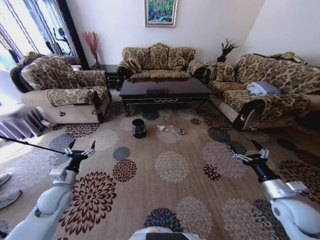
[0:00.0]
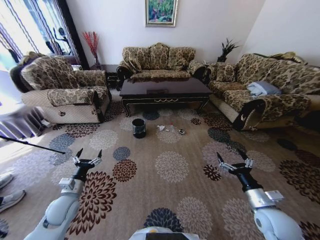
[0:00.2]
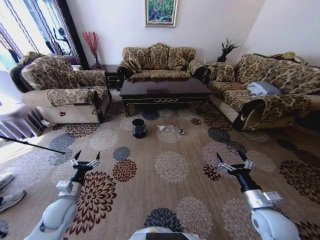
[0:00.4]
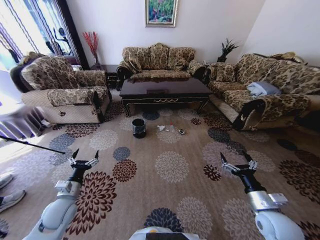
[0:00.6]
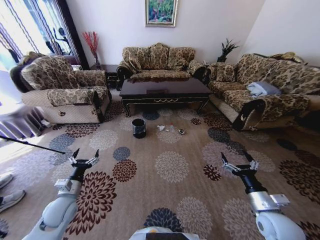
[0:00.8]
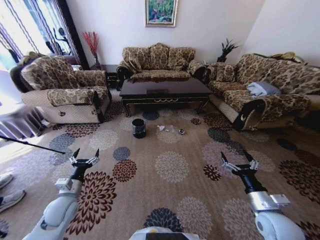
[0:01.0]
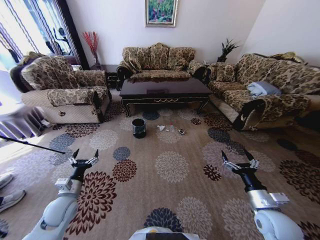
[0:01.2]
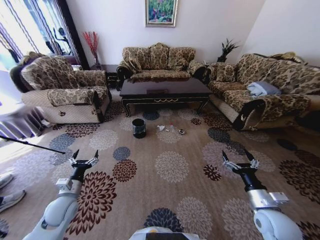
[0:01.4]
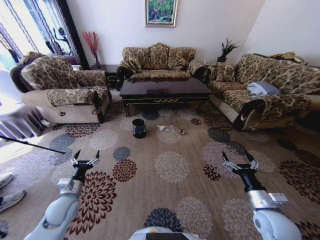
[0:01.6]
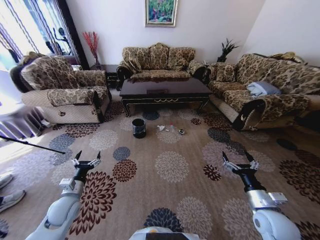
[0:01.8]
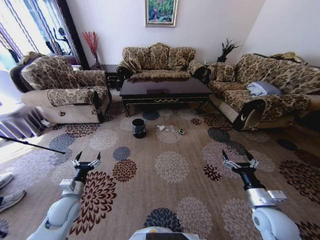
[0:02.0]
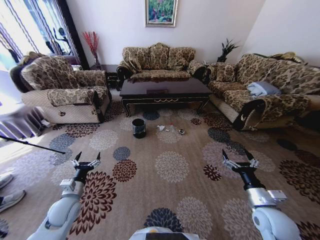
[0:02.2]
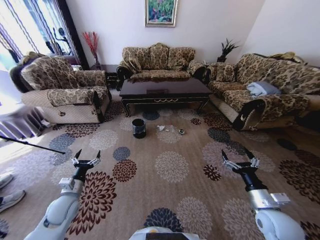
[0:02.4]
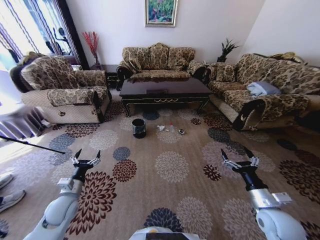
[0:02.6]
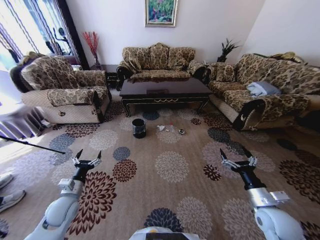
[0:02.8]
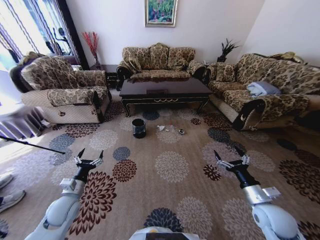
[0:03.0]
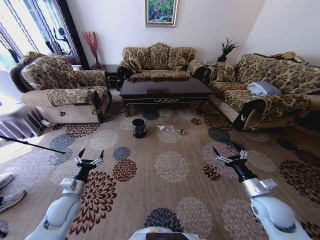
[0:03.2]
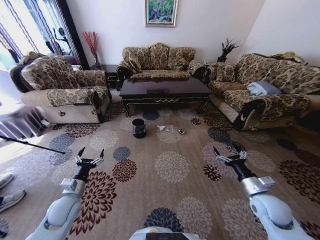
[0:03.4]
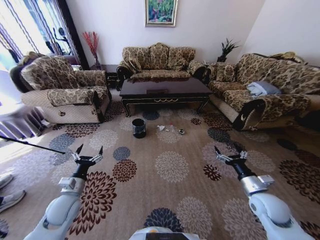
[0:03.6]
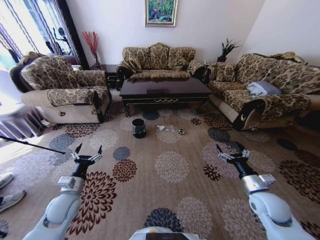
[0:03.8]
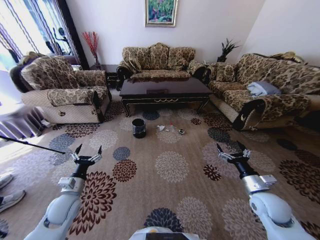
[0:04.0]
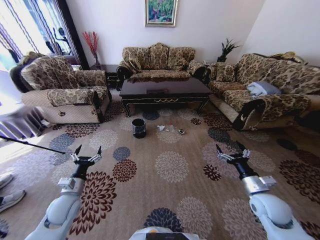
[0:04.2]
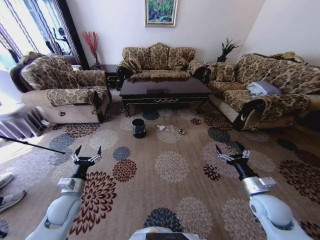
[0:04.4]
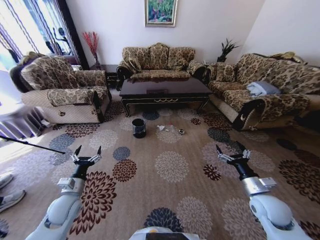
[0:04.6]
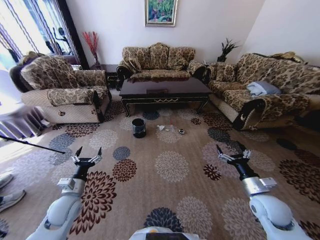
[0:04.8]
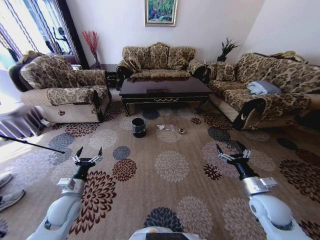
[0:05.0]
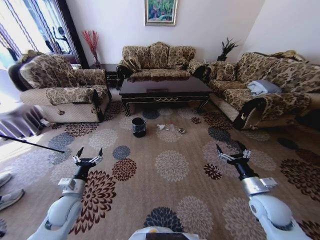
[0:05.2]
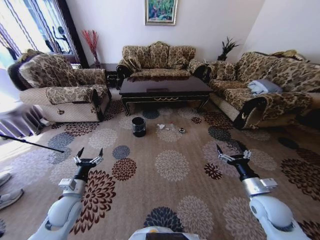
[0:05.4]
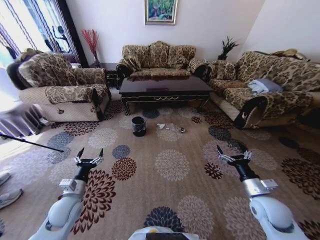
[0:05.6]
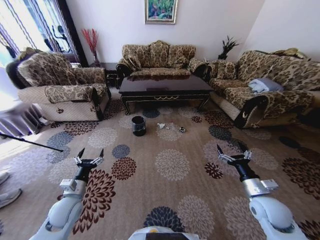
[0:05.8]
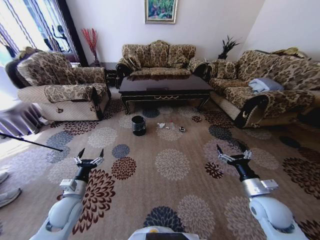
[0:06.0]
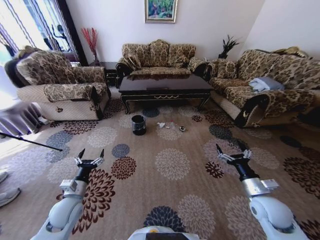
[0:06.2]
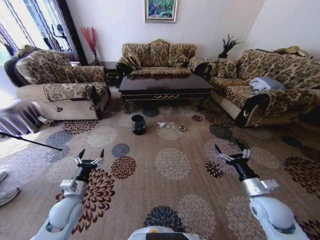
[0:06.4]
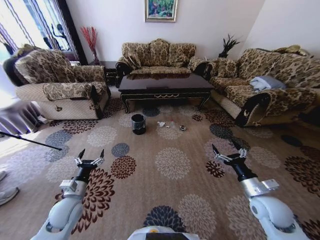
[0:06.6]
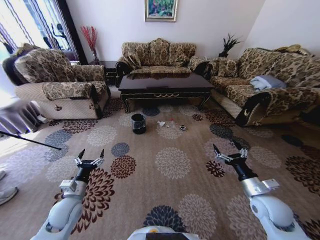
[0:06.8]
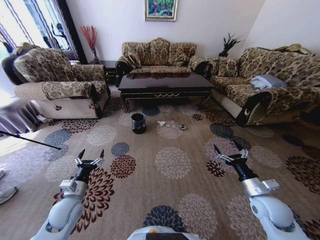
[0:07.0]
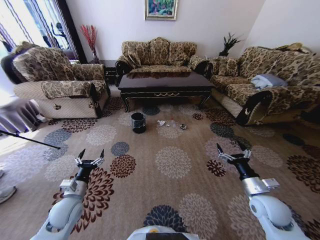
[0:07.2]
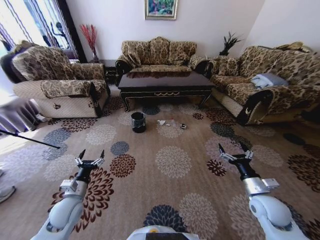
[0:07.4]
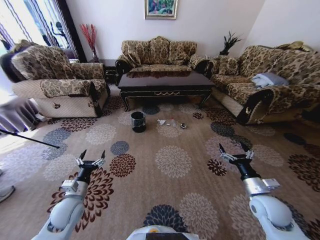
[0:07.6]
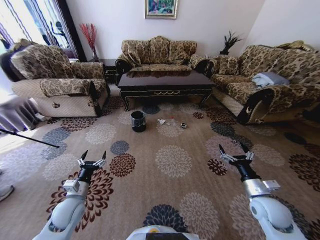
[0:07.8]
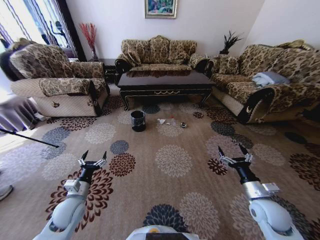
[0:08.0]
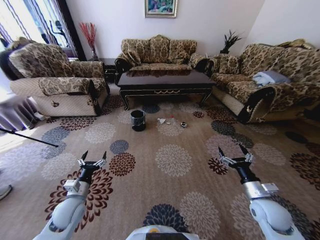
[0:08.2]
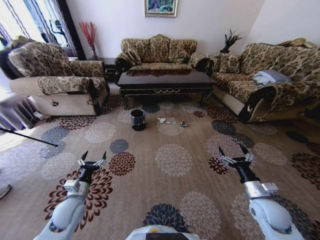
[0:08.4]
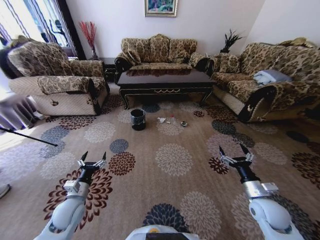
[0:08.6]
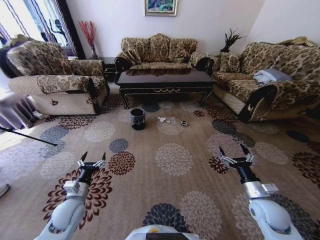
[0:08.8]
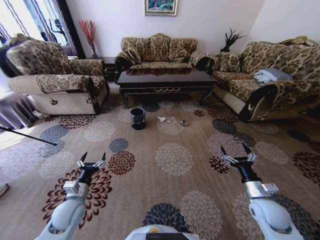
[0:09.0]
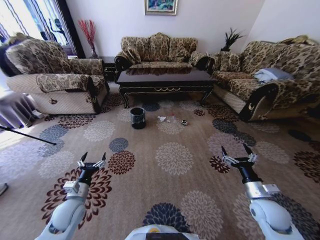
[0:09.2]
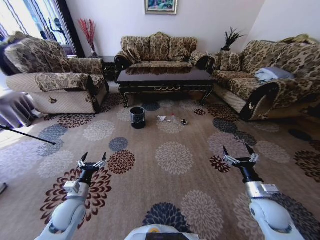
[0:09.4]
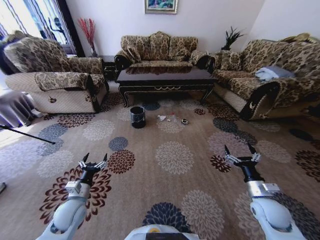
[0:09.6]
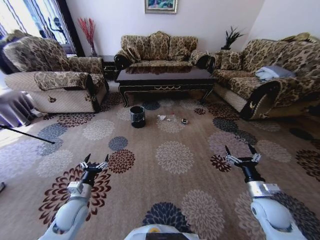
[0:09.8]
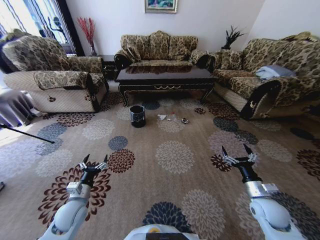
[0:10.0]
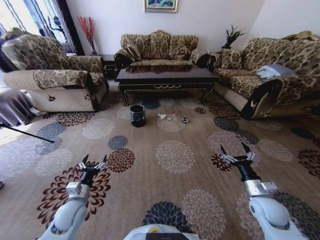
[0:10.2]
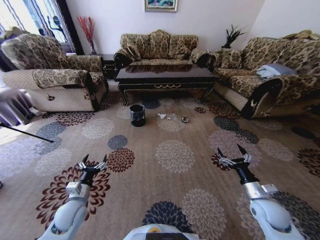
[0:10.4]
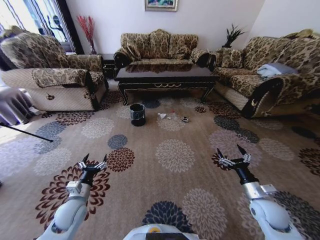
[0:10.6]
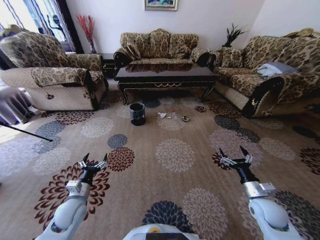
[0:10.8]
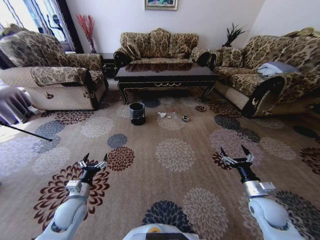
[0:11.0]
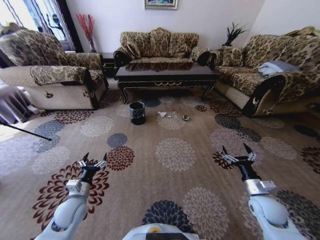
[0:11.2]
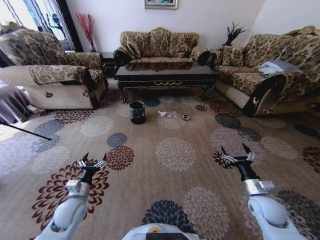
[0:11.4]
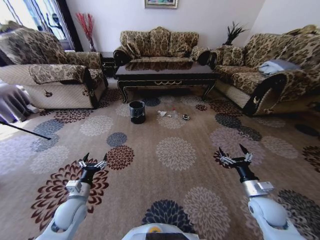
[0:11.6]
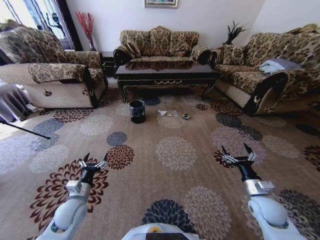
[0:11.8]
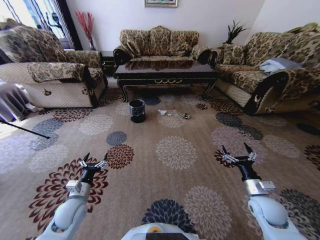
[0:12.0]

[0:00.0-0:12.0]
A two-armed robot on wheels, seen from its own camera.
Task of the whole recording: Move to the front of the table and pick up the trash from the floor, then place it into the trash bin.
0:01.6 to 0:04.4: The grippers move only a little.

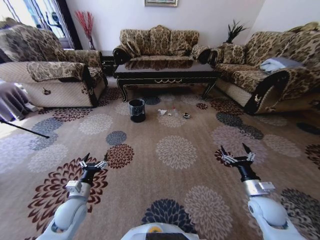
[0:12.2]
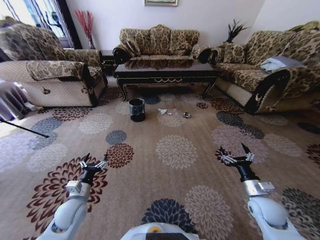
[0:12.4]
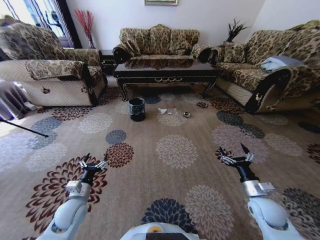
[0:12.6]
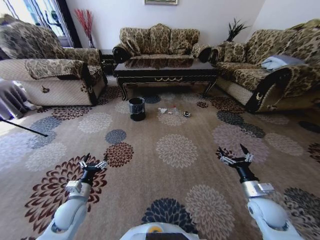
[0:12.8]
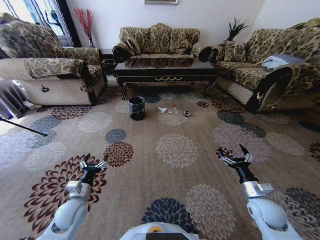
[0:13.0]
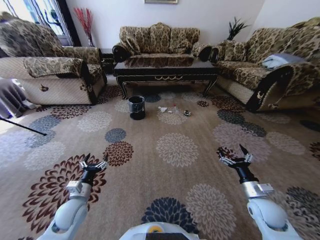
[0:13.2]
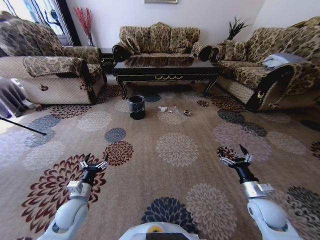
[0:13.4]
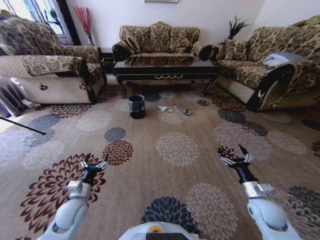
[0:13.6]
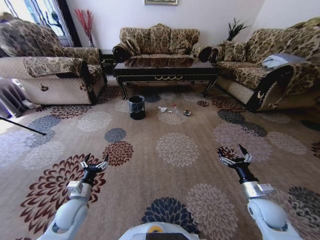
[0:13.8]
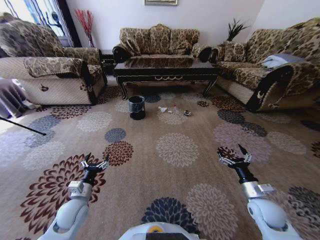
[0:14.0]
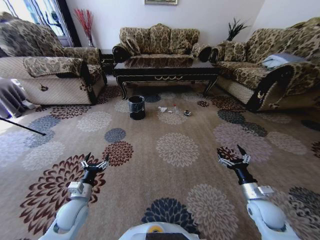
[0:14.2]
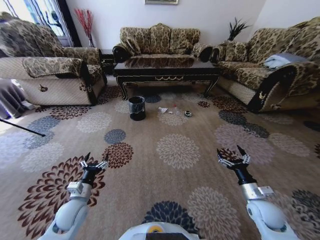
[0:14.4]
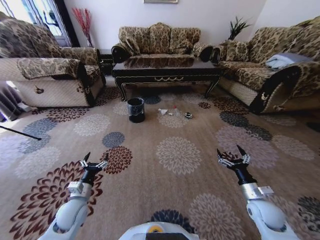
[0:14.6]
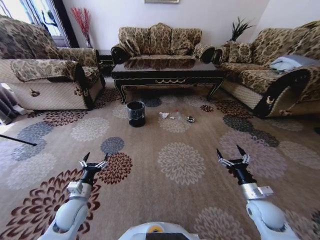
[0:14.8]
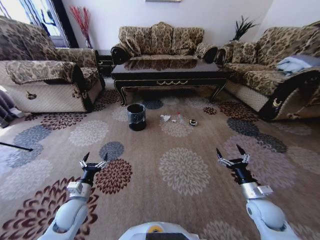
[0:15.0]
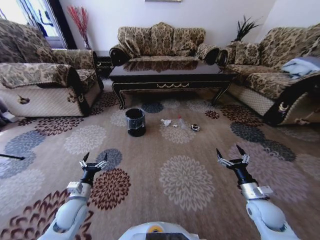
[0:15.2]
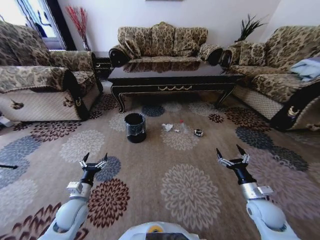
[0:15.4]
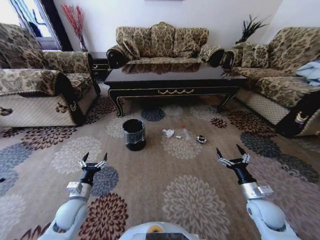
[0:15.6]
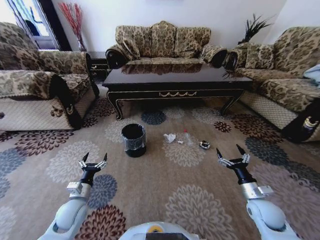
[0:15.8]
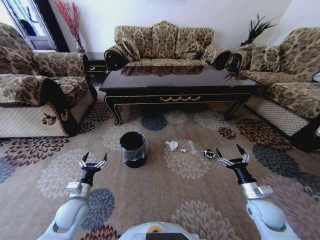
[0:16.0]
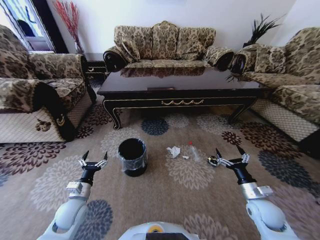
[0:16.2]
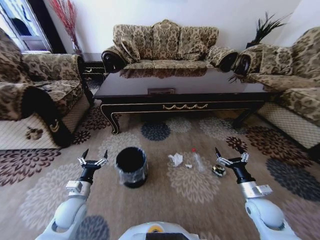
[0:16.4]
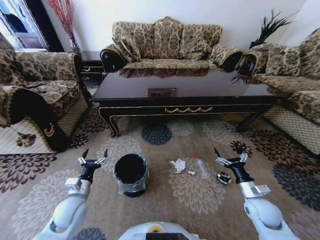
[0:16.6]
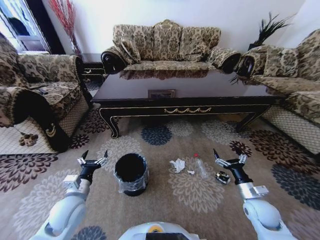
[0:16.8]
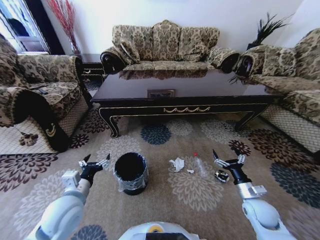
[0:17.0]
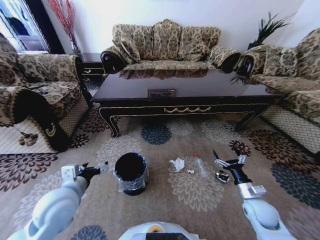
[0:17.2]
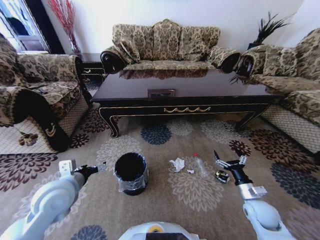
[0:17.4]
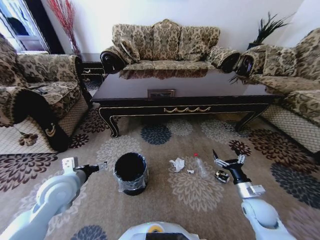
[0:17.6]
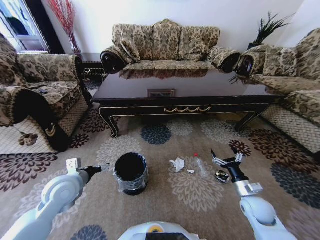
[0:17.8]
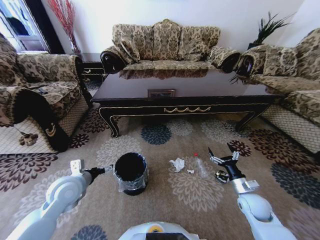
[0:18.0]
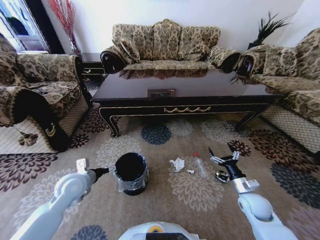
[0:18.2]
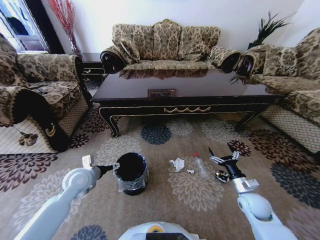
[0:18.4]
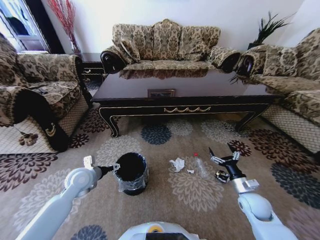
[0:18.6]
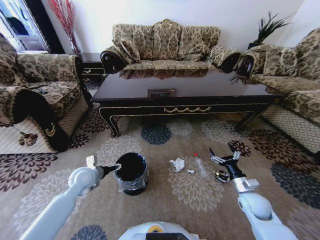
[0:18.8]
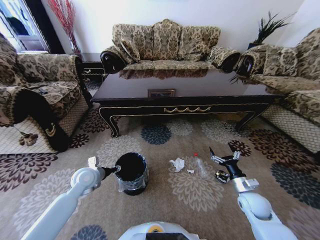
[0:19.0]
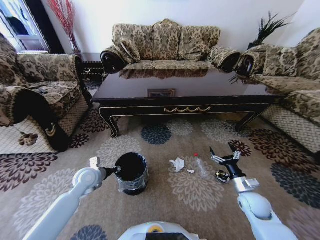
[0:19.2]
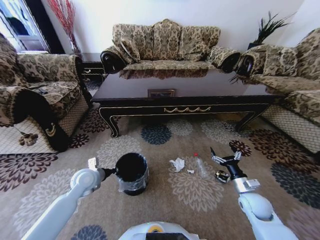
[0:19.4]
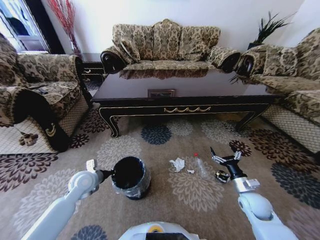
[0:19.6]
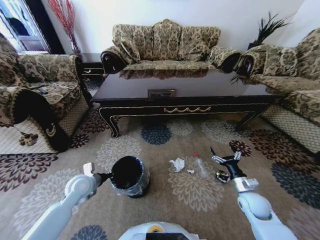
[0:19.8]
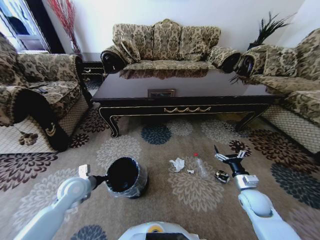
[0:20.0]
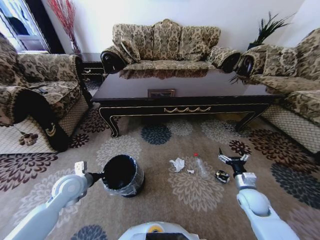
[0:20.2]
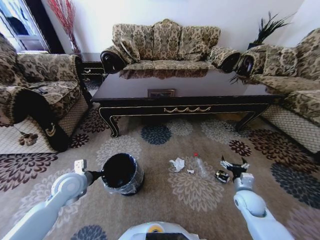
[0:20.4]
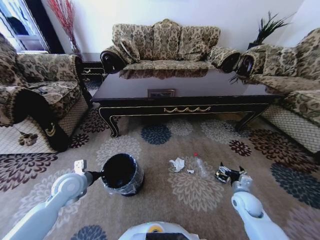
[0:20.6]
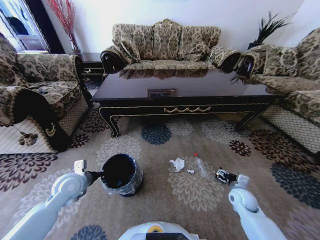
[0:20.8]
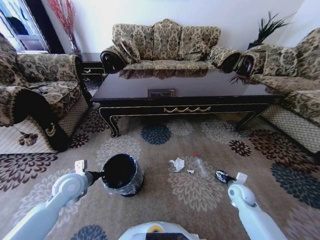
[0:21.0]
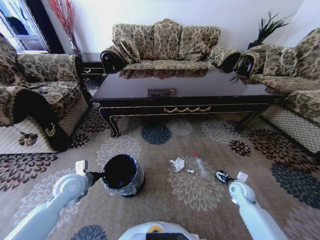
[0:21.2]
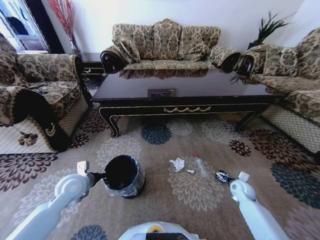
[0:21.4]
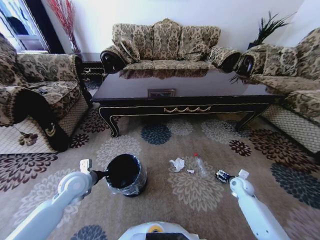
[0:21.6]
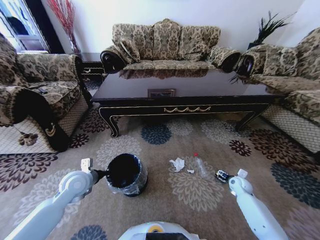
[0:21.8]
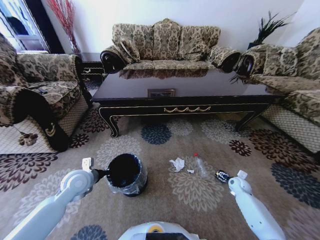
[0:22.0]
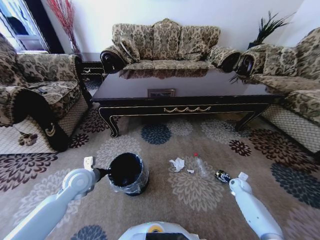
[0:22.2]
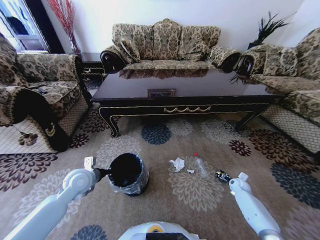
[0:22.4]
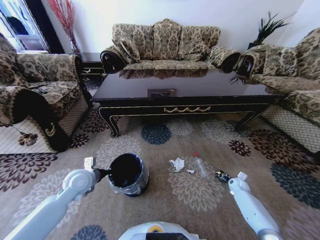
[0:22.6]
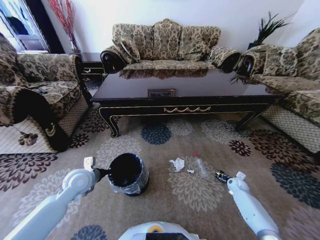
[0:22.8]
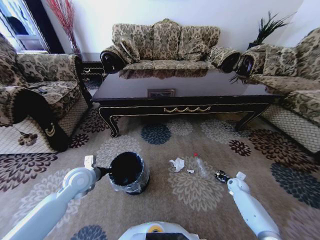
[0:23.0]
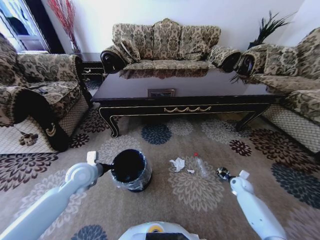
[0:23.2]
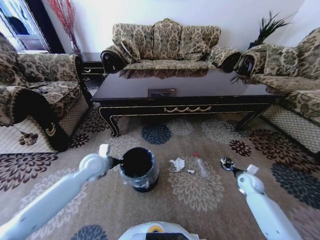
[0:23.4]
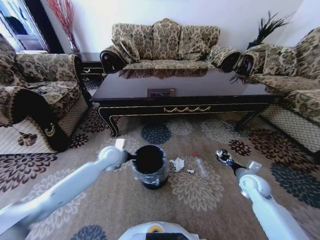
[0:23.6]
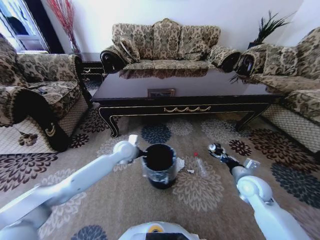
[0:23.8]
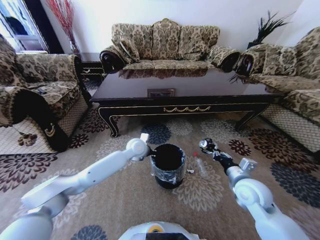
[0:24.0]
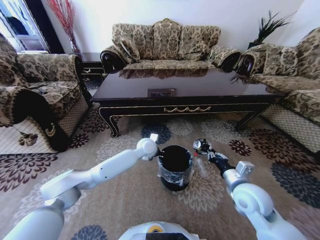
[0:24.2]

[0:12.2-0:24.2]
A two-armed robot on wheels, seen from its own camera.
Task of the whole recording: Move to the front of the table and pick up the trash from the floor, then place it into the trash bin.
0:16.6 to 0:18.2: The left gripper heads upward and forward, covering approximately 10 cm.
0:18.2 to 0:19.8: The left gripper shifts some 5 cm downward, and closes its fingers.
0:19.8 to 0:21.2: The right gripper shifts some 5 cm forward.
0:21.2 to 0:22.6: The right gripper heads downward, to the right and forward, covering about 10 cm, and closes up.
0:22.6 to 0:24.2: The left gripper moves to the right and forward, approximately 30 cm. The right gripper goes approximately 35 cm upward, to the left and backward, and closes.
